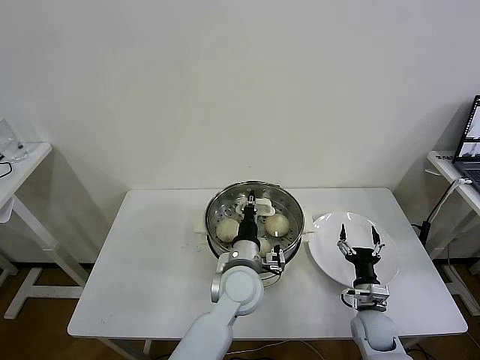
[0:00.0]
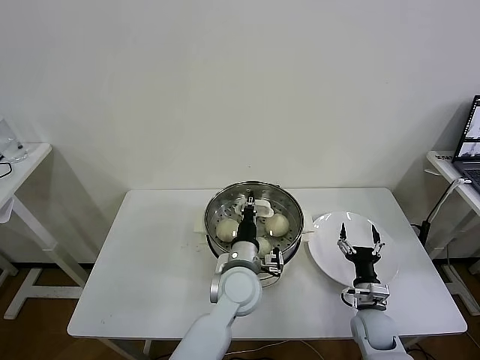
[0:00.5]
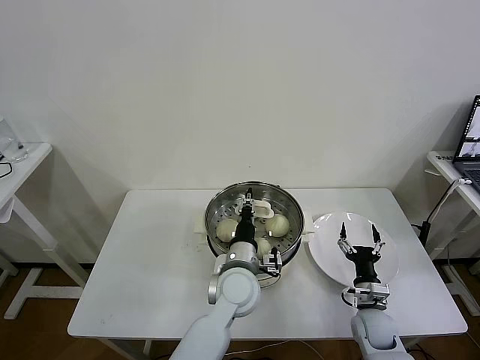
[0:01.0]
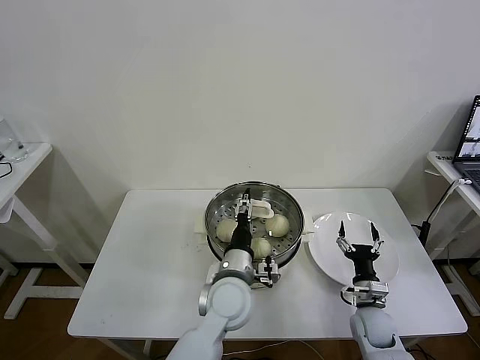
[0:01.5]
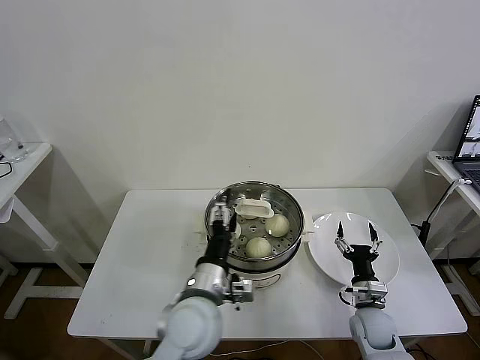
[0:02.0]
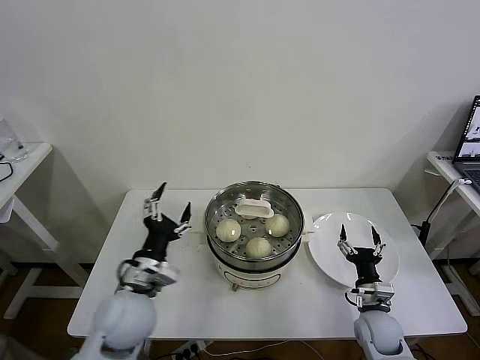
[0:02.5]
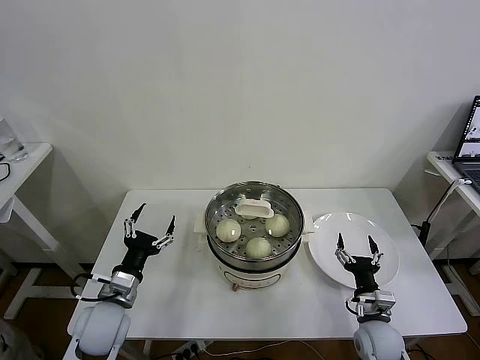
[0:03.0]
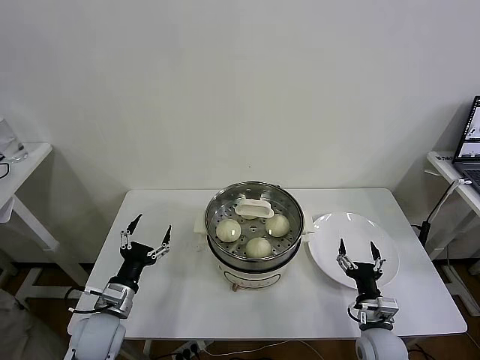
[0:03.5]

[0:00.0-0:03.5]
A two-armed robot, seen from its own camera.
Task of the whole recording: take steamed baozi put them in steamer then cover it.
0:00.0 to 0:02.0: The left gripper moves backward and to the left, about 10 cm, and opens up.
0:02.0 to 0:03.5: The right gripper travels backward by about 5 cm. Meanwhile the left gripper travels to the left and downward by some 25 cm.

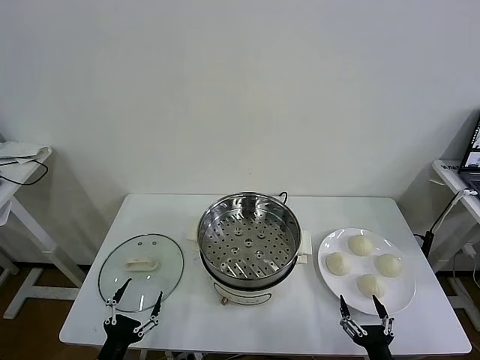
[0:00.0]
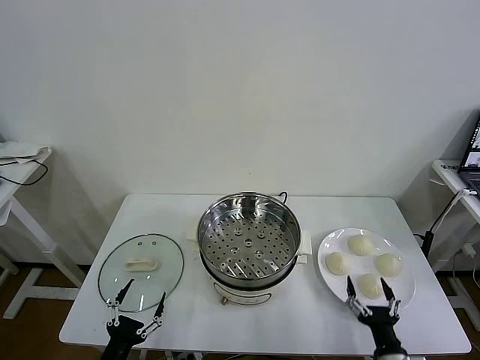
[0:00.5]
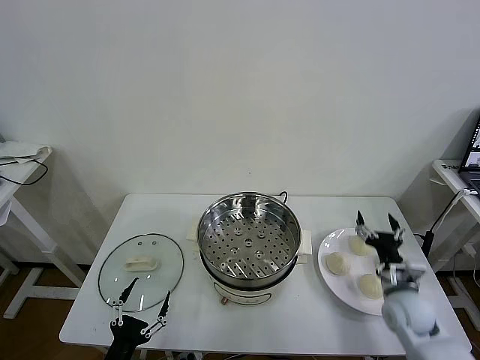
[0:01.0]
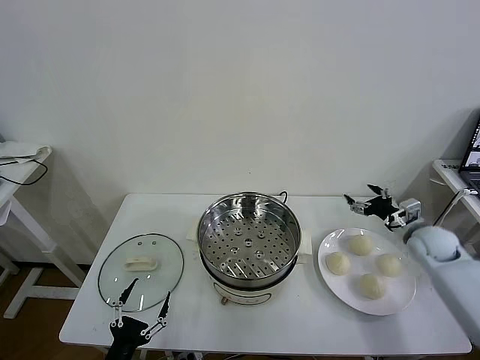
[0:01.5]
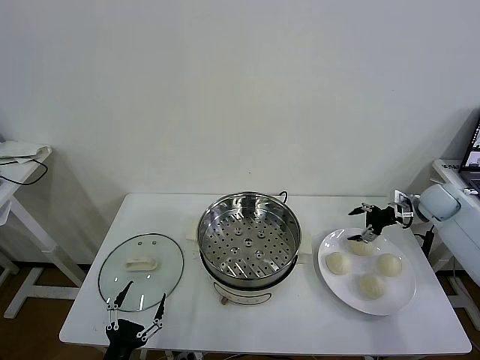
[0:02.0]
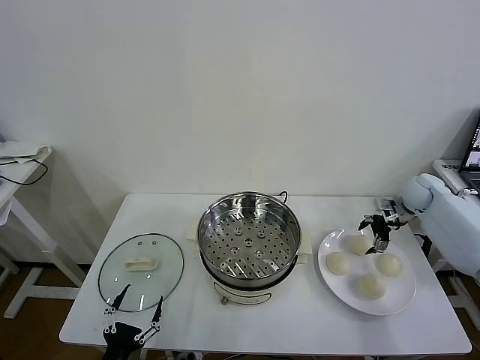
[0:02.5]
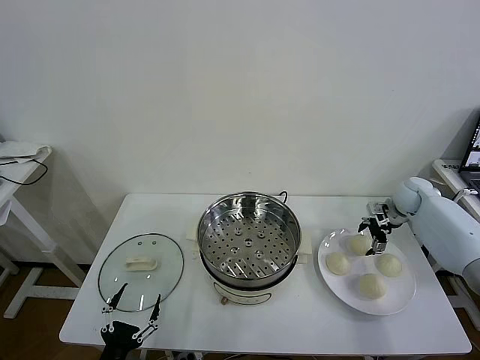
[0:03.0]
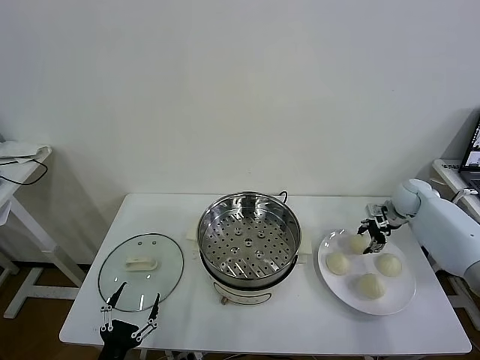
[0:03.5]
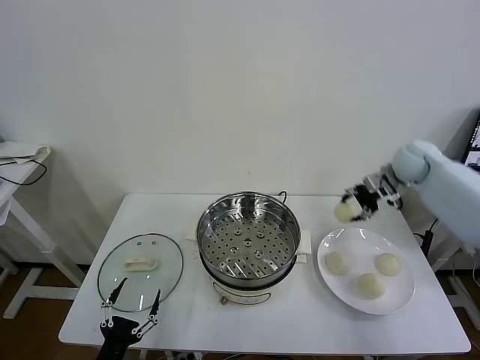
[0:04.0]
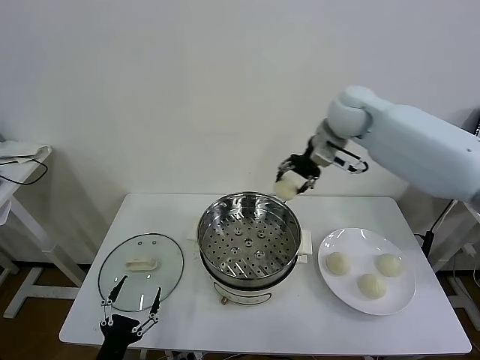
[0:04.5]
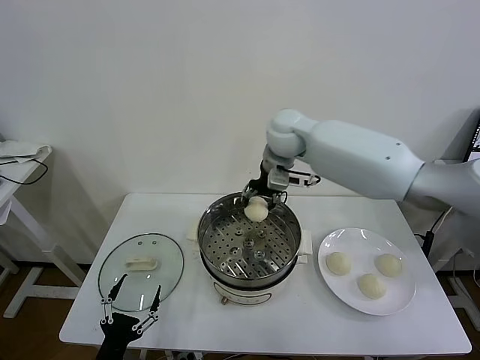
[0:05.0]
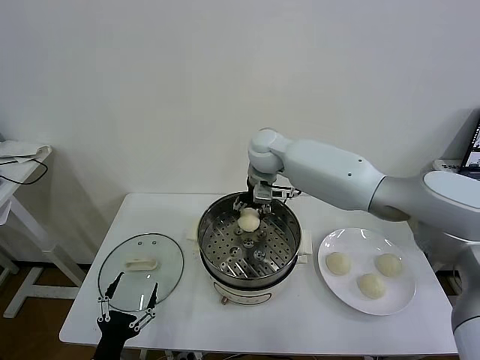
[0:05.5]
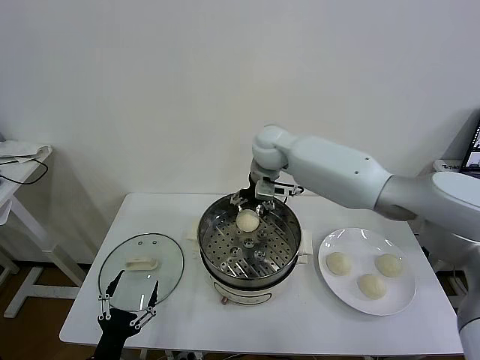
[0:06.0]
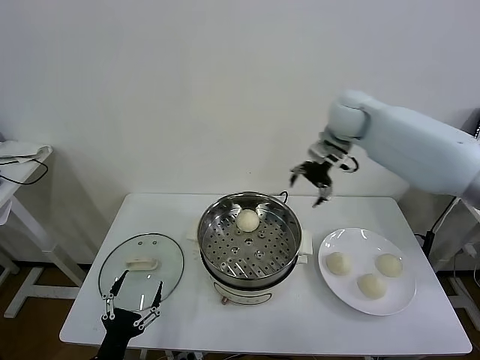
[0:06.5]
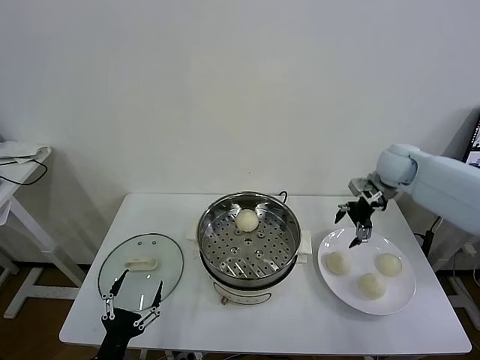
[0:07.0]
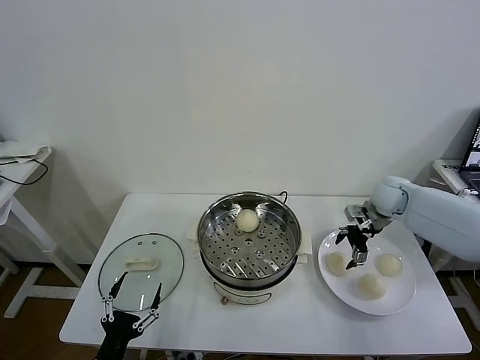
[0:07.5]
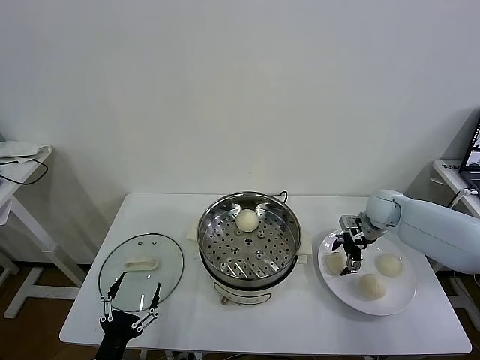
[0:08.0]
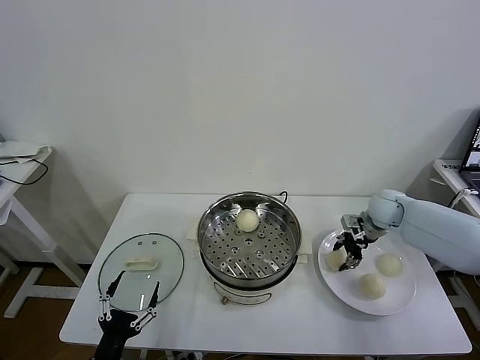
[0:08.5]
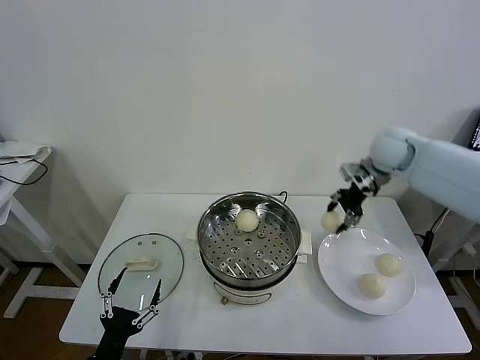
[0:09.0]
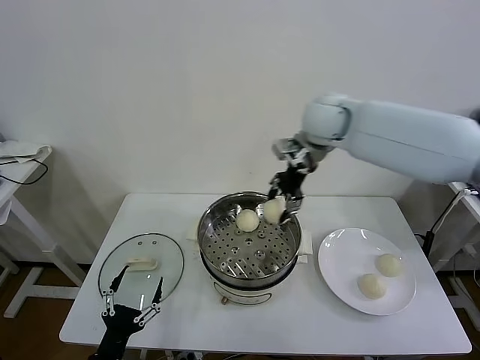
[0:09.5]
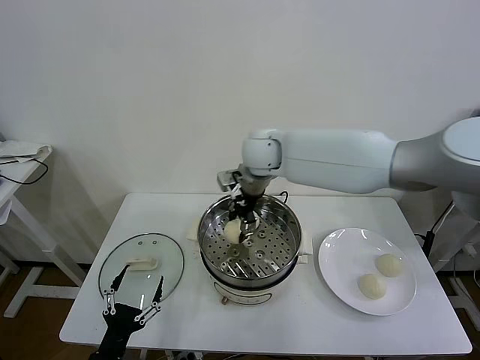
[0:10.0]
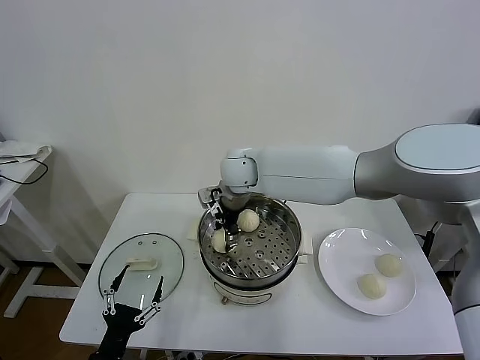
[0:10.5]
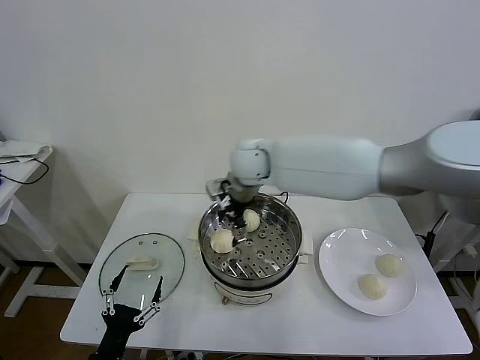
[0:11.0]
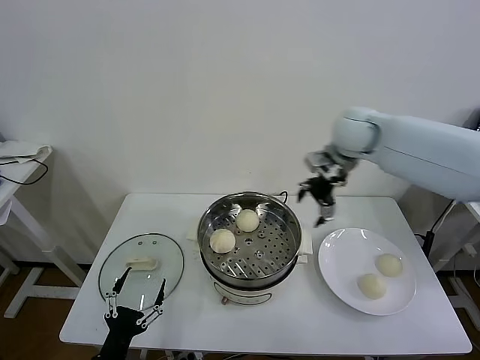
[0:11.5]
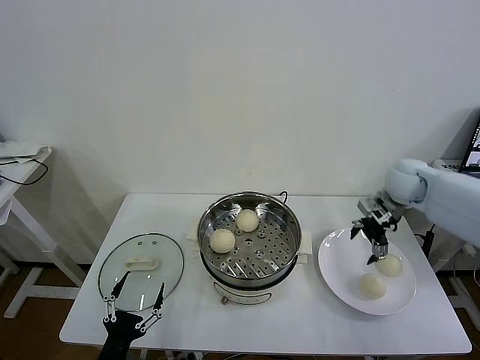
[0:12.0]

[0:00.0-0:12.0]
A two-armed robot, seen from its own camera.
Task of the whole recording: take steamed baozi put them in steamer then cover it.
Step, 0:00.0 to 0:03.0: Grasp the baozi in the plate with right gripper.
Step, 0:03.5 to 0:05.5: Place the baozi on the steamer with right gripper.
Step, 0:06.0 to 0:08.5: Grasp the baozi in the plate with right gripper.
Step, 0:09.0 to 0:10.5: Place the baozi on the steamer with right gripper.
0:02.0 to 0:04.0: The right gripper goes some 15 cm upward and to the left, and closes.
0:04.0 to 0:06.0: The right gripper moves to the left, some 30 cm, and opens up.
0:06.0 to 0:08.0: The right gripper shifts about 35 cm to the right and downward.
0:08.0 to 0:10.0: The right gripper goes some 40 cm to the left and upward, and closes.
0:10.0 to 0:12.0: The right gripper heads to the right, covering roughly 35 cm, and opens.

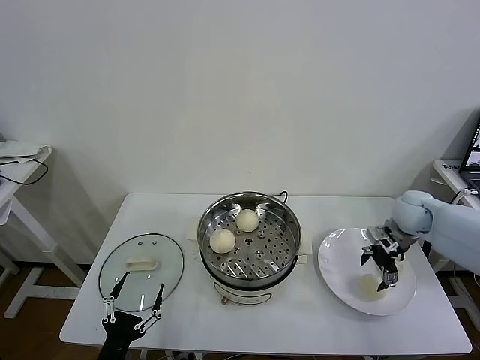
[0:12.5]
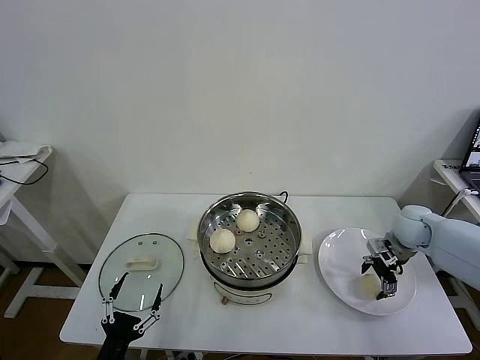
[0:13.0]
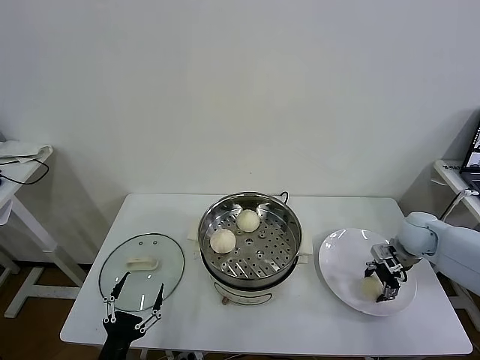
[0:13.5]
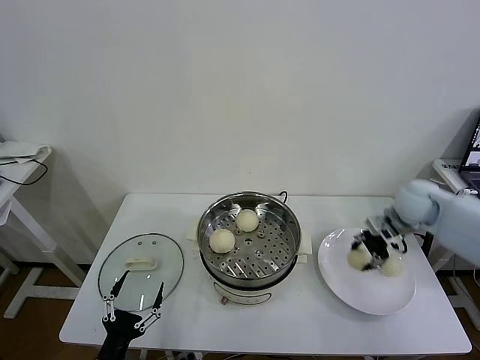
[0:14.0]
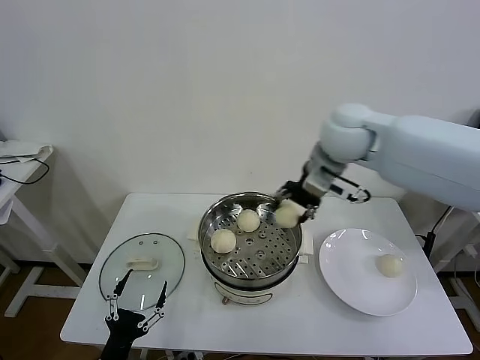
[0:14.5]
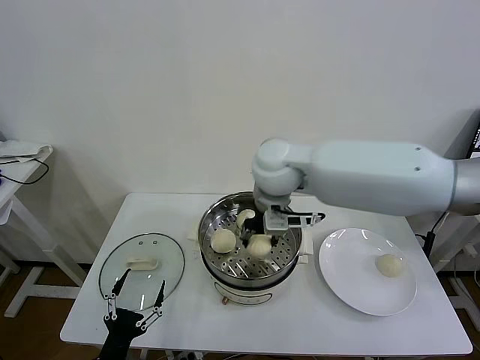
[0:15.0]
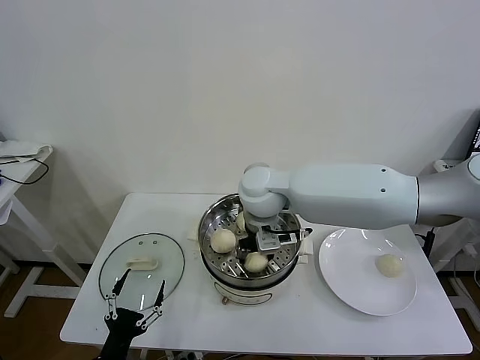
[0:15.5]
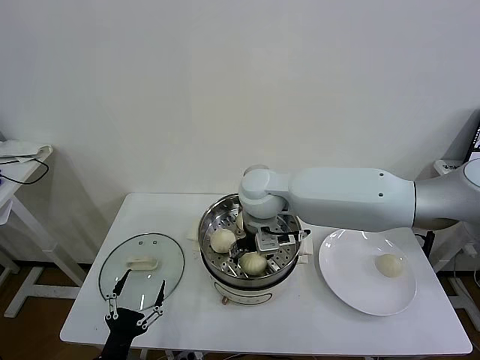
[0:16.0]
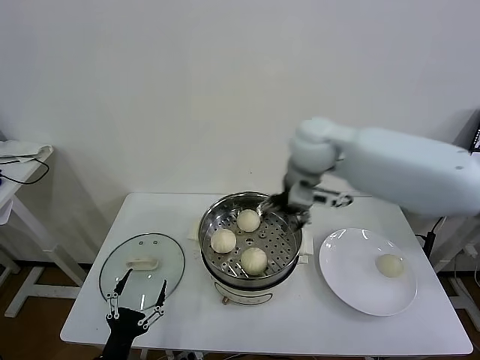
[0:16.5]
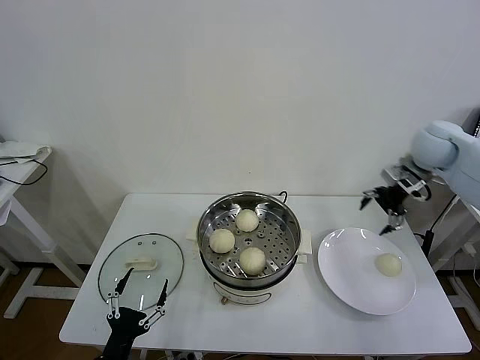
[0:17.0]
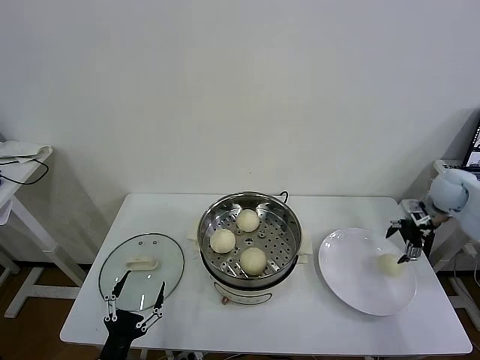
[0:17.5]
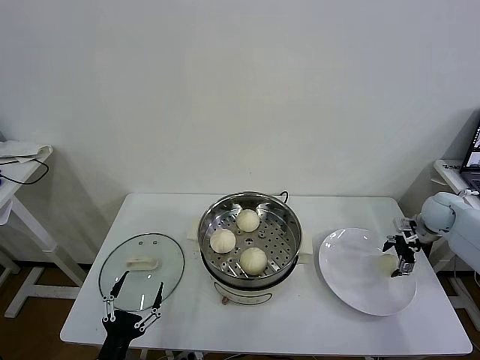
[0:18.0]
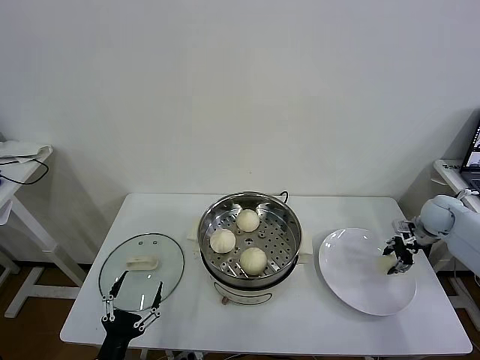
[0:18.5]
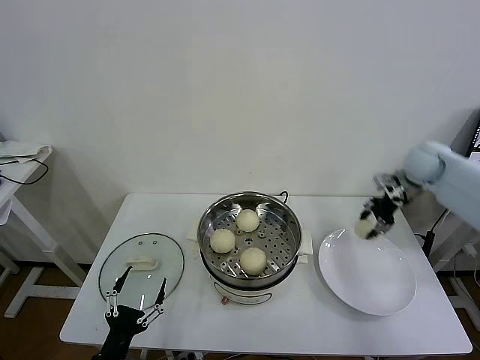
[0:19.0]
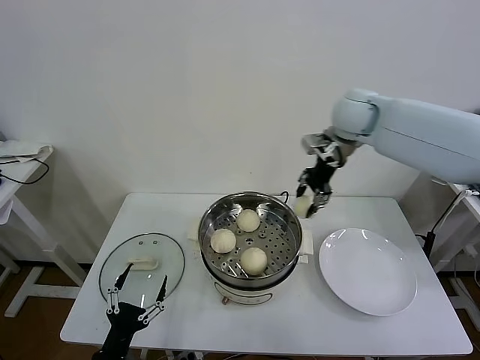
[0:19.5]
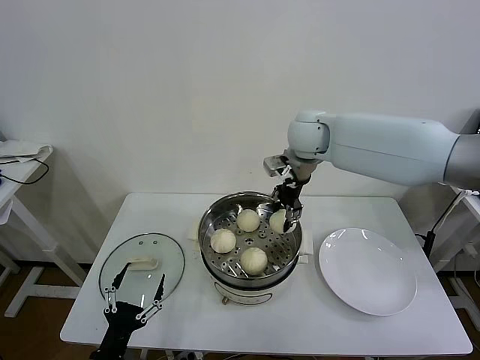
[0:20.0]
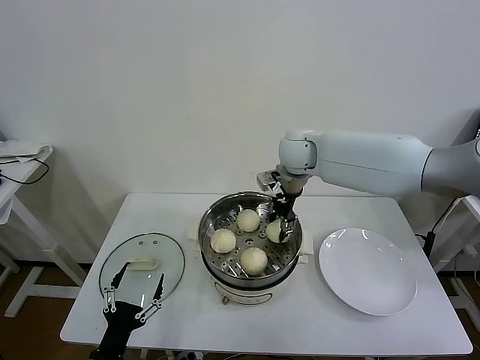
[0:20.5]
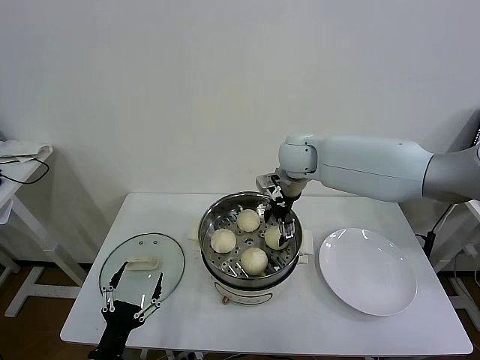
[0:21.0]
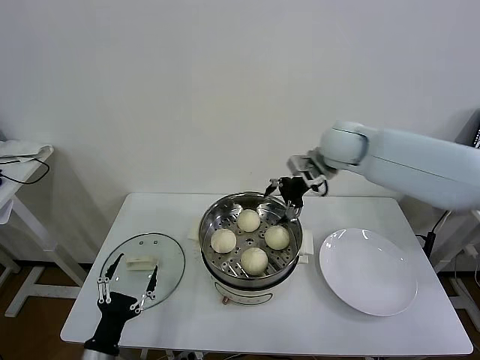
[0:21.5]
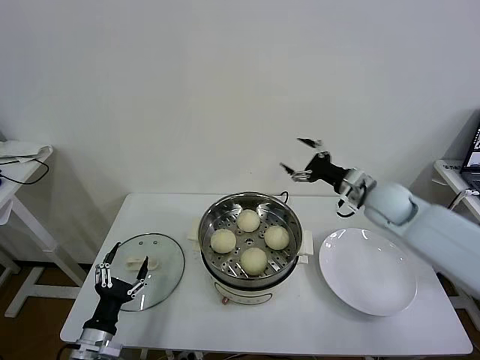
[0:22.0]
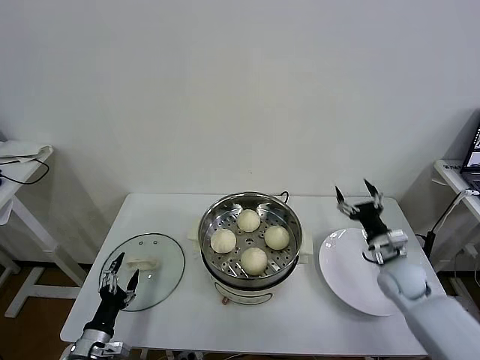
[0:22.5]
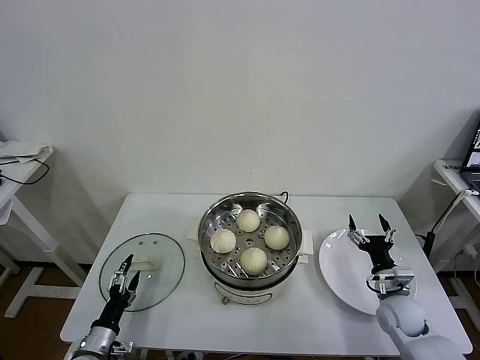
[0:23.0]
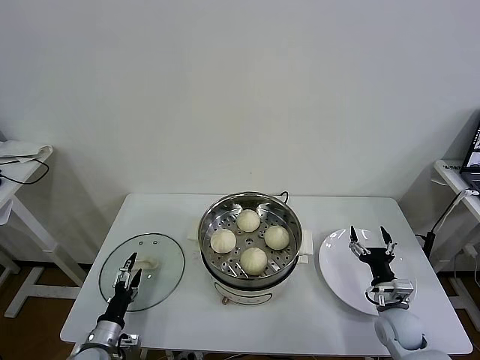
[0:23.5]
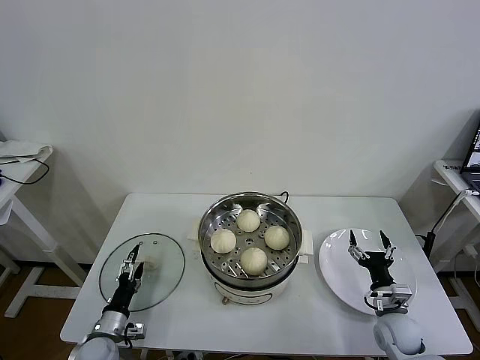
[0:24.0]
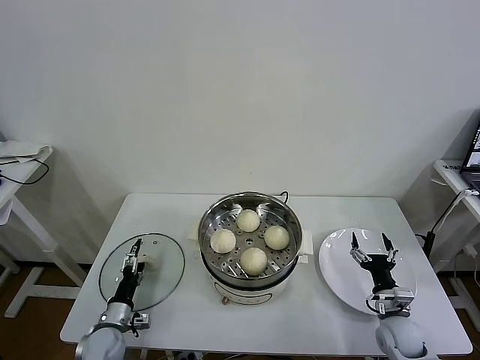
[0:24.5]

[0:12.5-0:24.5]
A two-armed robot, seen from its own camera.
Task of the whole recording: take steamed baozi put them in steamer then cover it.
Step, 0:14.0 to 0:16.0: Place the baozi on the steamer with right gripper.
Step, 0:16.5 to 0:18.5: Grasp the baozi in the plate with right gripper.
Step, 0:19.0 to 0:21.0: Place the baozi on the steamer with right gripper.
0:12.5 to 0:14.5: The right gripper is displaced to the left and upward by roughly 35 cm, and closes up.
0:14.5 to 0:16.5: The right gripper goes to the left and returns, some 15 cm each way, and opens up.
0:16.5 to 0:18.5: The right gripper goes about 40 cm to the right and downward, and closes its fingers.
0:18.5 to 0:20.5: The right gripper goes approximately 40 cm to the left and upward.
0:20.5 to 0:22.5: The left gripper shifts roughly 10 cm forward and to the left. The right gripper goes approximately 40 cm to the right, downward and backward, and opens up.
0:22.5 to 0:24.5: The left gripper goes approximately 10 cm forward and downward. Meanwhile the right gripper heads downward and backward, covering roughly 15 cm.
